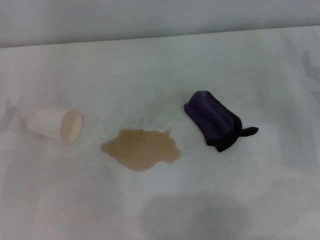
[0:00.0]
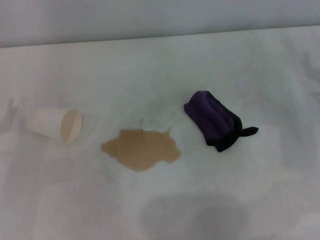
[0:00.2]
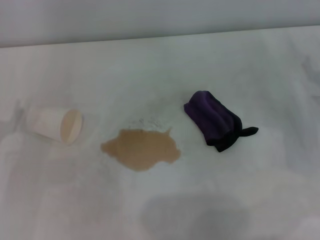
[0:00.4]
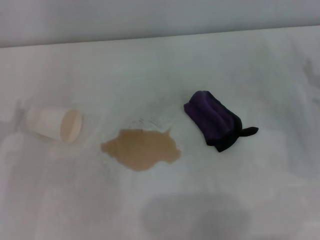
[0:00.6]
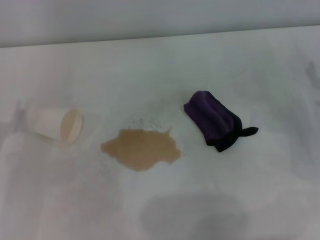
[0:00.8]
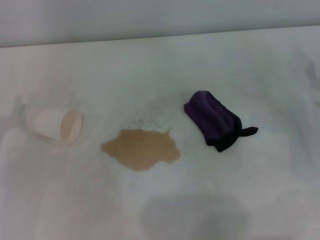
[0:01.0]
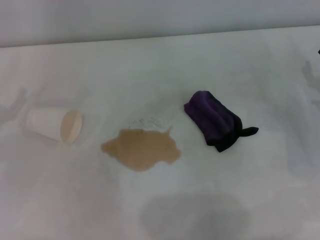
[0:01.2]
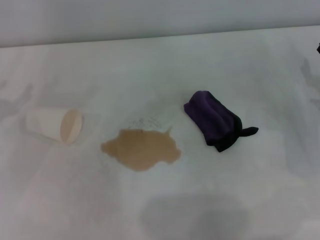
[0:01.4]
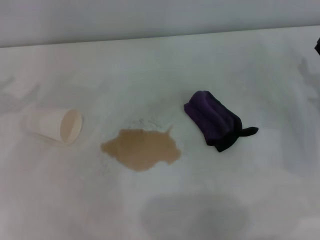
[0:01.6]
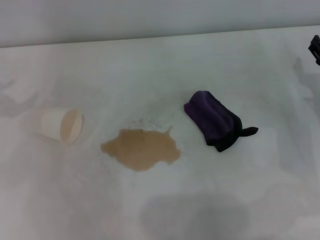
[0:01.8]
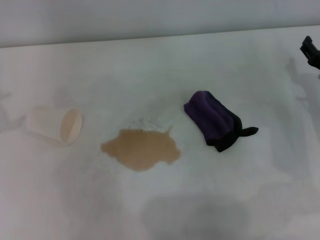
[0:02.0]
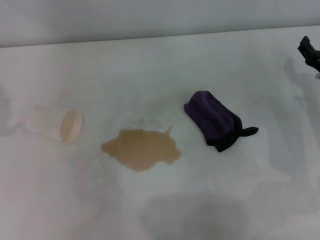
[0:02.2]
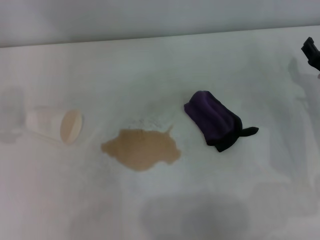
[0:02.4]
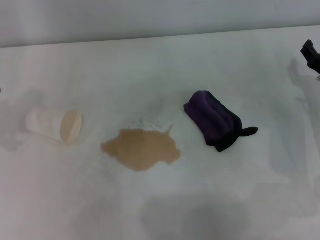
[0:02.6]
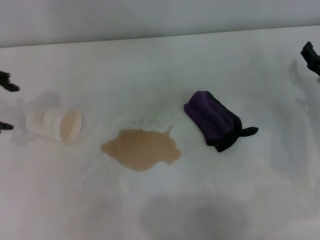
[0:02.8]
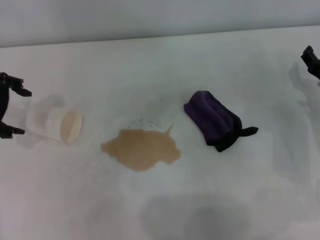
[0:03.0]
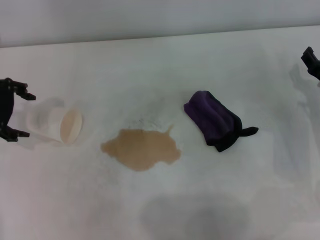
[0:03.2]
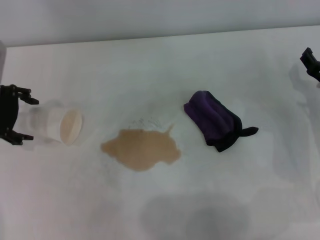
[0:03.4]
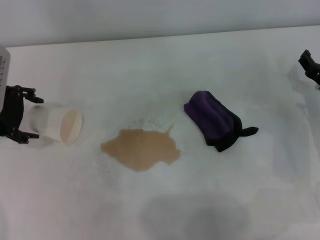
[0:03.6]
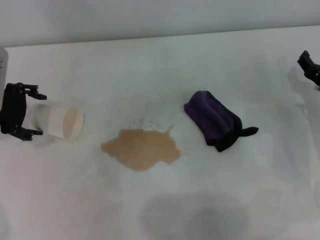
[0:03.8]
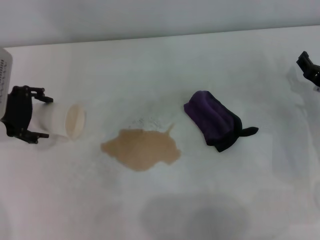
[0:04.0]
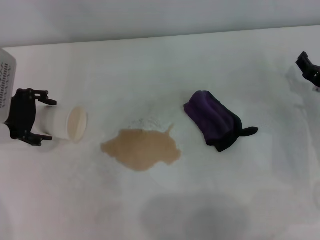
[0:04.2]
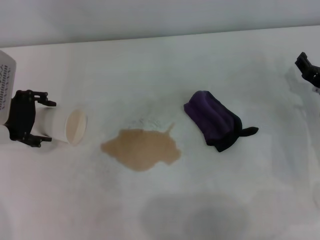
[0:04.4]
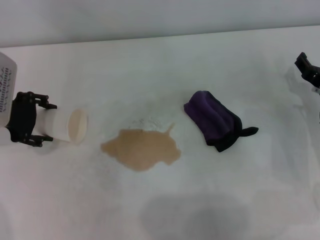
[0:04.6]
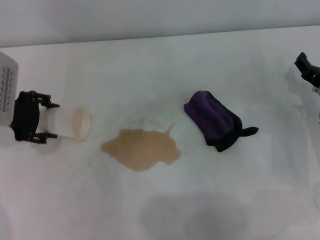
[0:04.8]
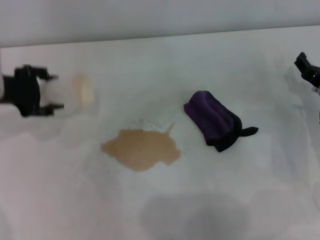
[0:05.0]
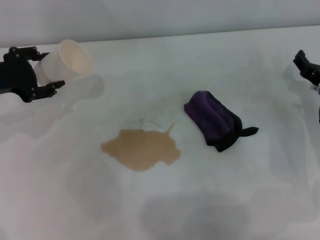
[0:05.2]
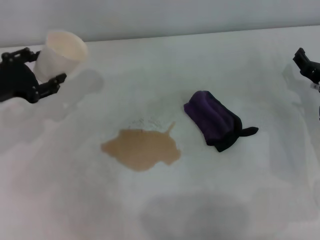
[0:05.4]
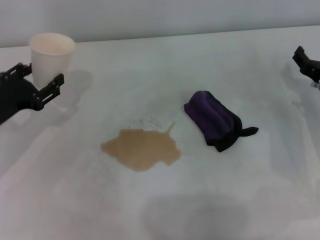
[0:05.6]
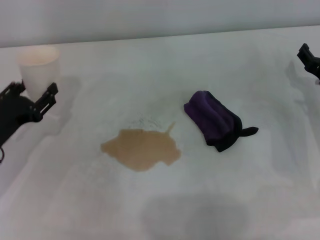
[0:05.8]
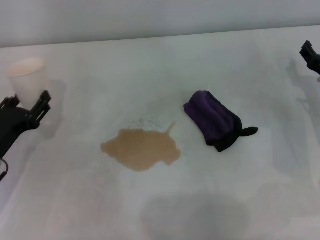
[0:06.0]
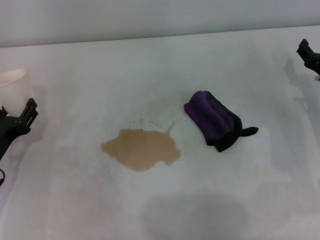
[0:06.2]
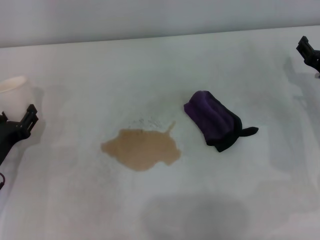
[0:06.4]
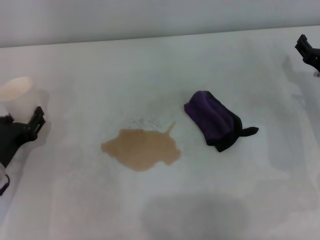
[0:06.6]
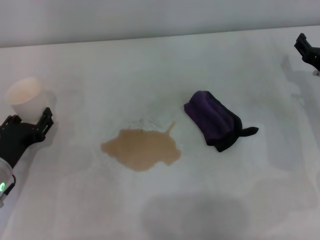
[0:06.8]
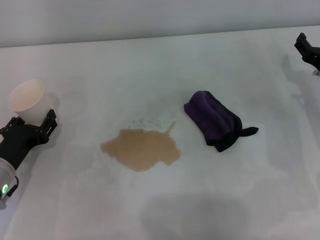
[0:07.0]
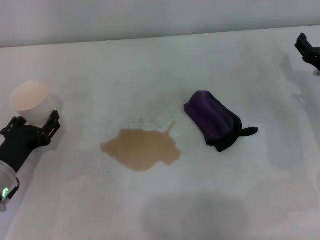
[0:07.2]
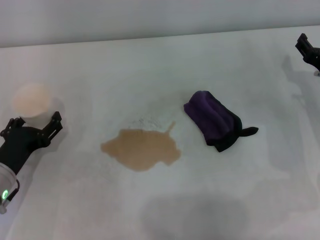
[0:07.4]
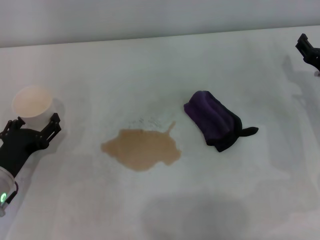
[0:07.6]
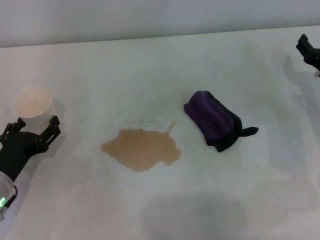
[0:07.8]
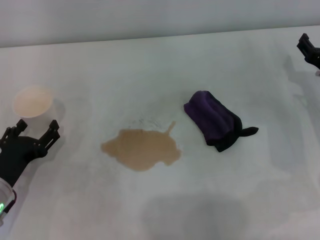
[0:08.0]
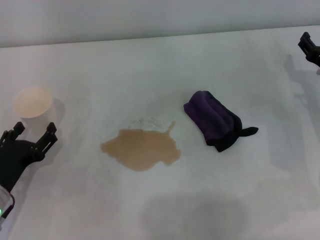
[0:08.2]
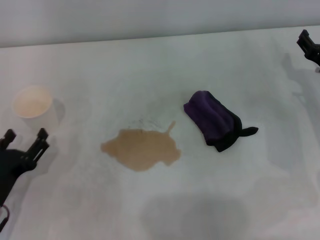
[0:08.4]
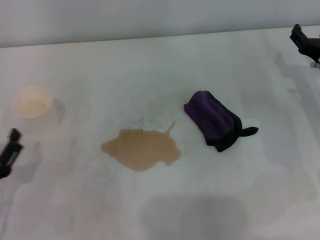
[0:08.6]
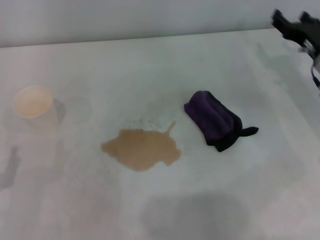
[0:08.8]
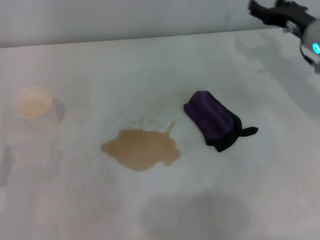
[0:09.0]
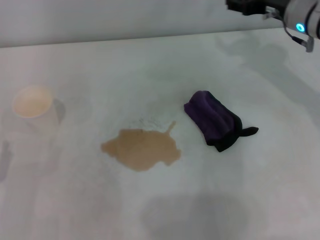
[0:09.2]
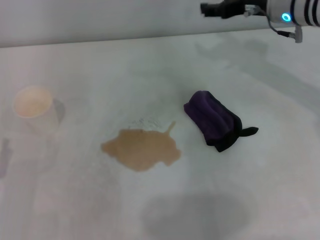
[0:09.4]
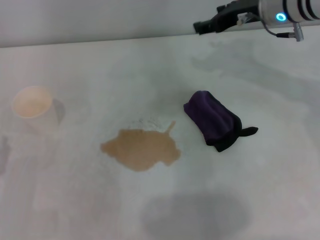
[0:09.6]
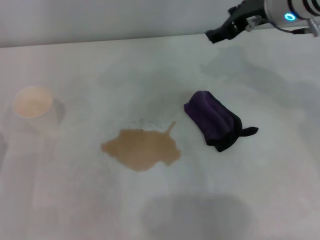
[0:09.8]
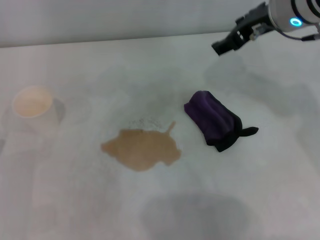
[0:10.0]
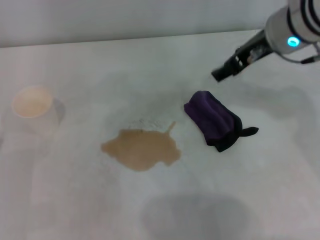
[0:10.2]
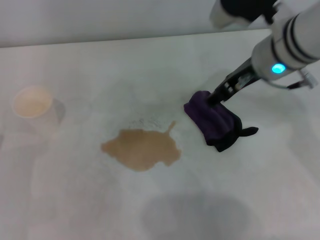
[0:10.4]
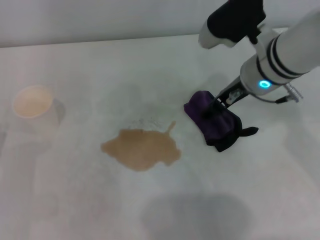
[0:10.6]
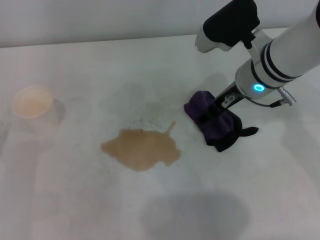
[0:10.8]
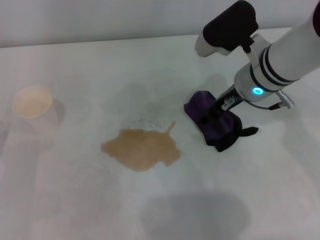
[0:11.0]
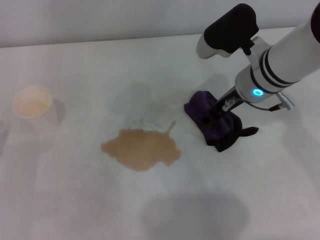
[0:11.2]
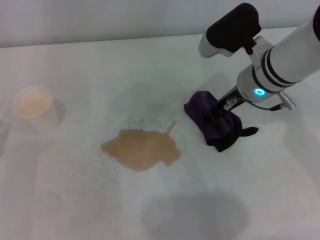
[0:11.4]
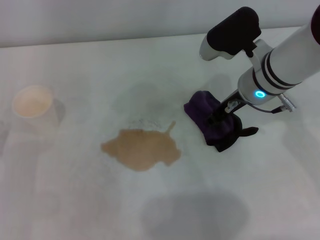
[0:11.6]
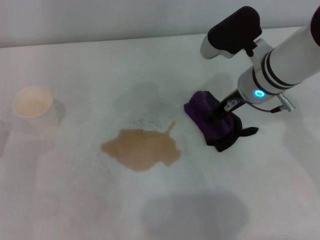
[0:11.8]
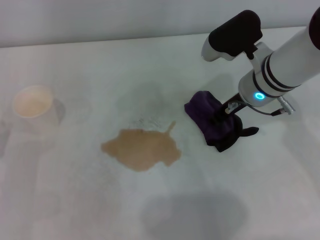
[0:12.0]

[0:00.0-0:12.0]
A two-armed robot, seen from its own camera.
Step, 0:00.0 to 0:04.6: Grasp the paper cup with the left gripper.
Step, 0:04.8 to 0:08.0: Stand the paper cup upright with the left gripper.
0:01.6 to 0:03.0: The left gripper moves to the right and upward, some 10 cm.
0:03.0 to 0:04.4: The left gripper travels downward by approximately 5 cm.
0:04.4 to 0:06.0: The left gripper heads downward and backward, covering approximately 15 cm, and closes its fingers.
0:06.0 to 0:07.6: The left gripper opens.
0:07.6 to 0:09.0: The right gripper goes about 10 cm forward and upward. The left gripper moves backward, some 10 cm.
0:09.0 to 0:10.4: The right gripper moves to the left, upward and backward, some 15 cm.
0:10.4 to 0:12.0: The right gripper goes roughly 5 cm downward, and closes.

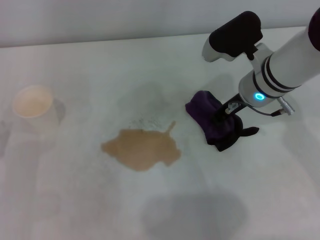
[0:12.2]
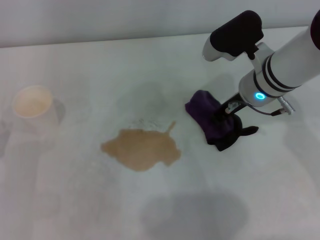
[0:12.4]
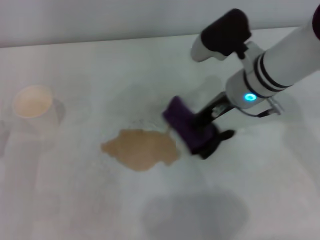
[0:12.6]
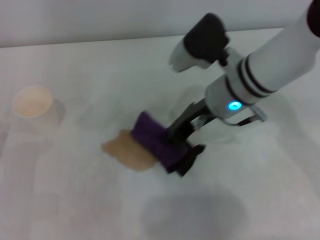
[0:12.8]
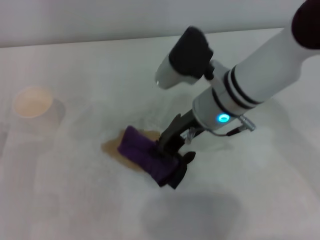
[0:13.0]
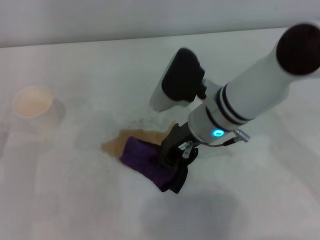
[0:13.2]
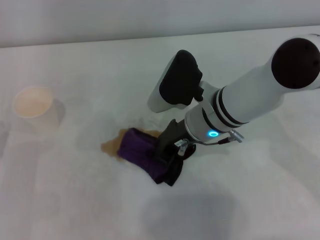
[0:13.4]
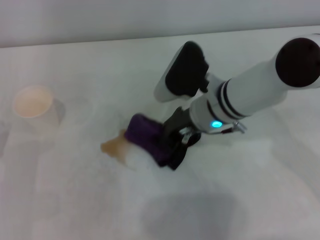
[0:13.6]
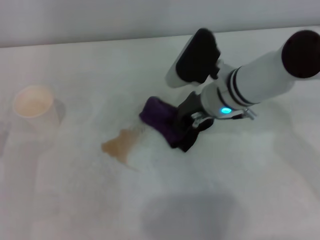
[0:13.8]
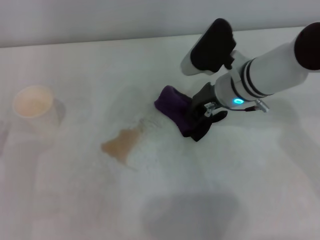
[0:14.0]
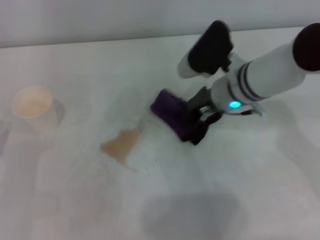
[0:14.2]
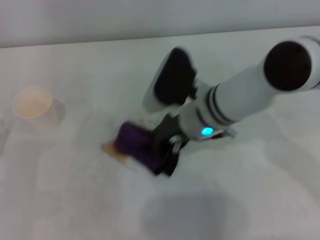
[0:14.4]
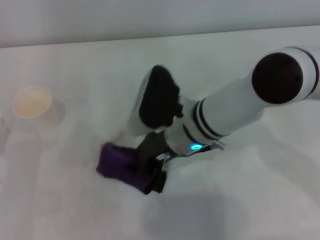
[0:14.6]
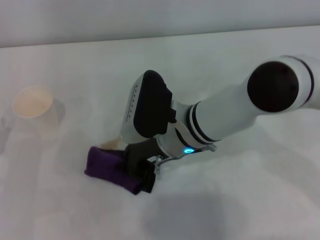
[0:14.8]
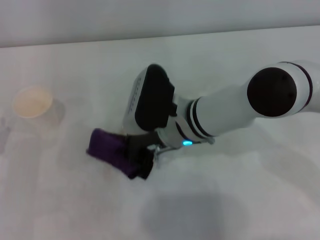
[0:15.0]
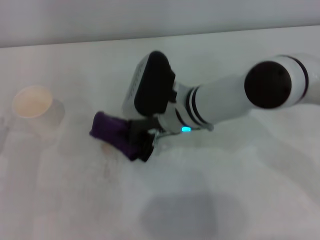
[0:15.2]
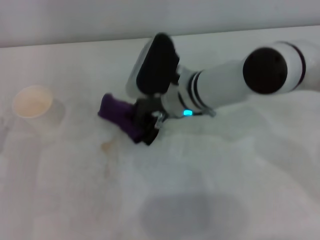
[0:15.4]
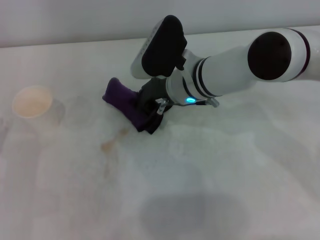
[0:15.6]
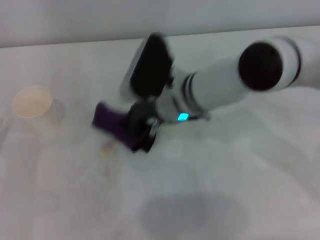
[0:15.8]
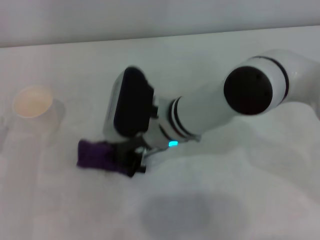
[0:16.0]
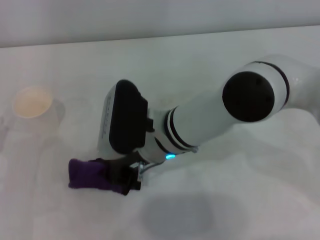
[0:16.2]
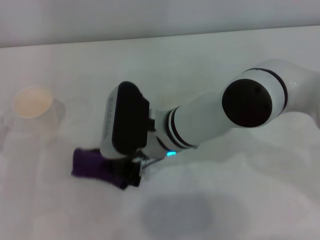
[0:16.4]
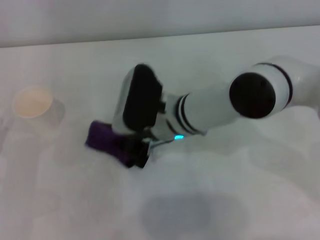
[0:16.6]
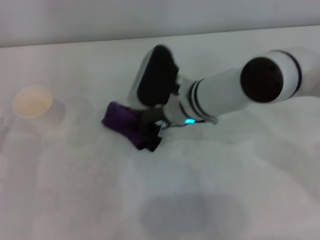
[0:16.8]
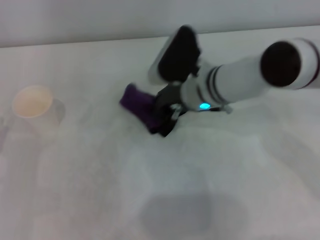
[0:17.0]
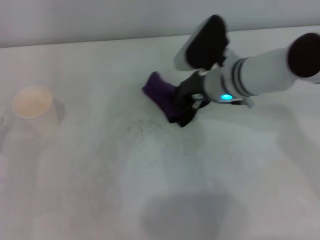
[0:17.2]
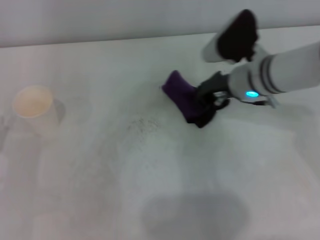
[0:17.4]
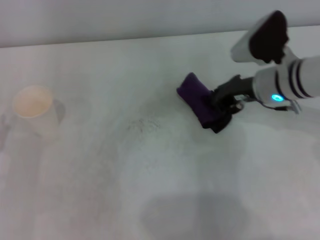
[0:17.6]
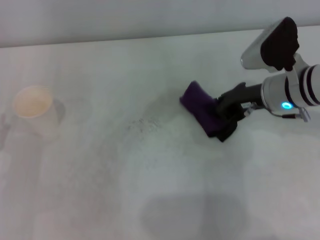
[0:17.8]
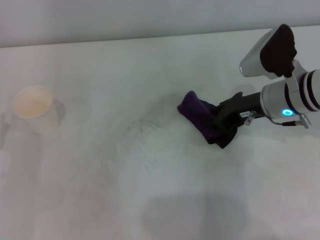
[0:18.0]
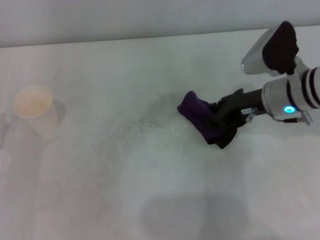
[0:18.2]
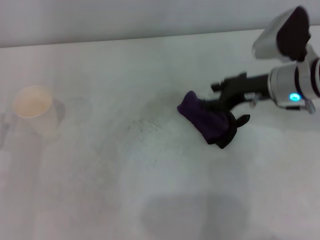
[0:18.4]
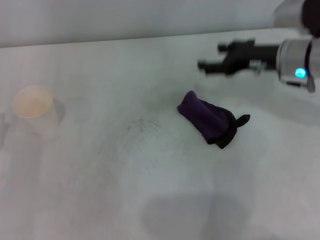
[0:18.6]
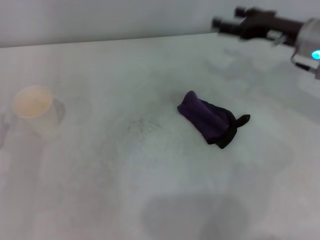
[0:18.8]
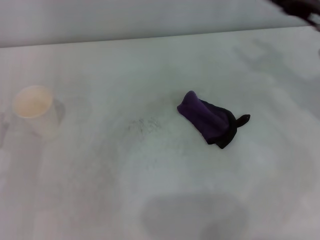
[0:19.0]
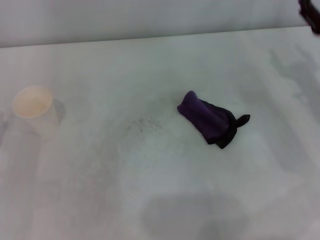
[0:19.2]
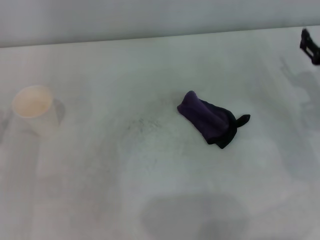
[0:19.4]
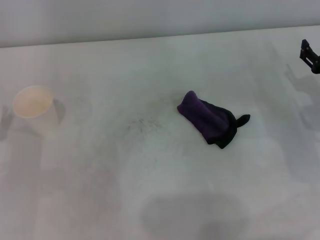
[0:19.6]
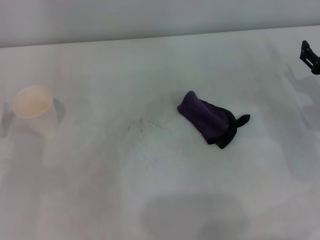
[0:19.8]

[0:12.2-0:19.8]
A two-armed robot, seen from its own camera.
Step, 0:12.4 to 0:17.4: Wipe the stains off the table with the right gripper.
Step, 0:17.6 to 0:18.2: Place the rag on the table with the right gripper.
0:13.8 to 0:15.2: The right gripper travels to the left by about 5 cm.
0:15.2 to 0:16.8: The right gripper goes backward and returns, roughly 5 cm each way.
0:16.8 to 0:18.2: The right gripper heads to the right, covering approximately 15 cm.
0:18.2 to 0:19.8: The right gripper shifts approximately 15 cm to the right and downward, and opens its fingers.

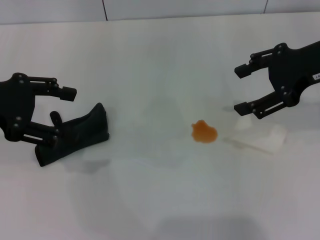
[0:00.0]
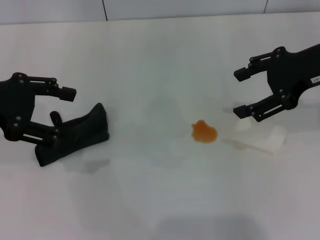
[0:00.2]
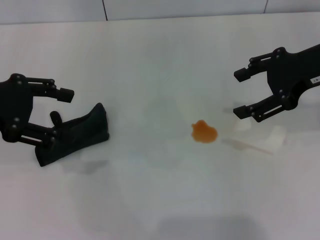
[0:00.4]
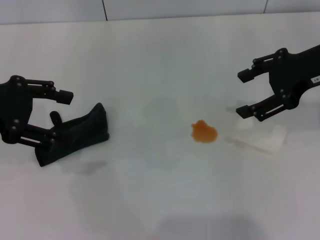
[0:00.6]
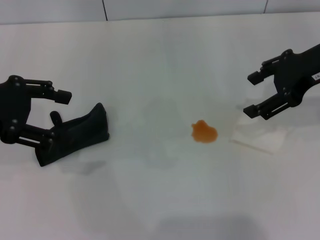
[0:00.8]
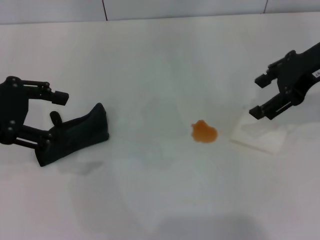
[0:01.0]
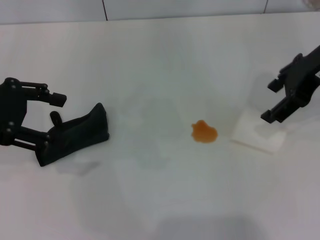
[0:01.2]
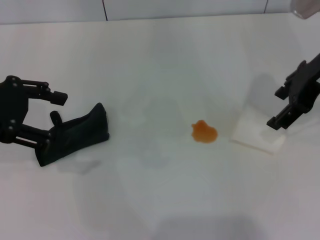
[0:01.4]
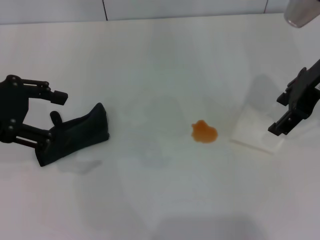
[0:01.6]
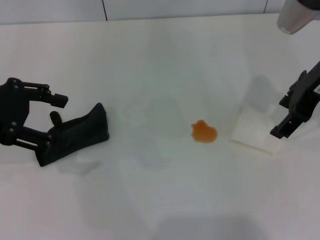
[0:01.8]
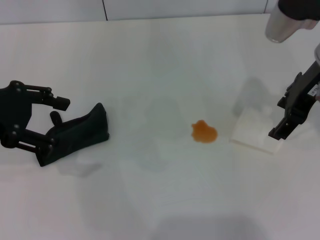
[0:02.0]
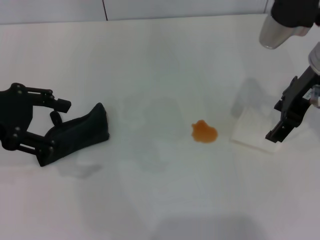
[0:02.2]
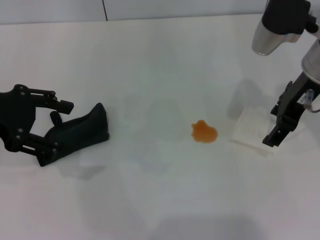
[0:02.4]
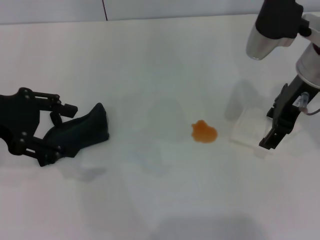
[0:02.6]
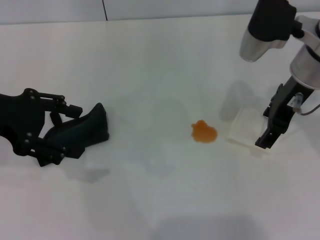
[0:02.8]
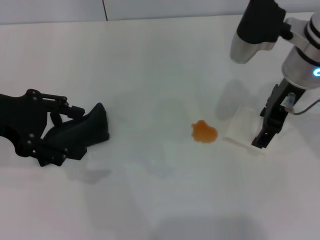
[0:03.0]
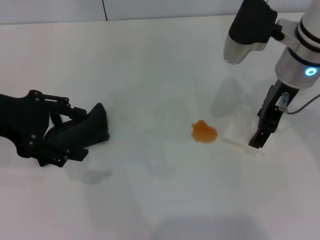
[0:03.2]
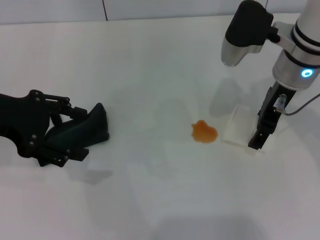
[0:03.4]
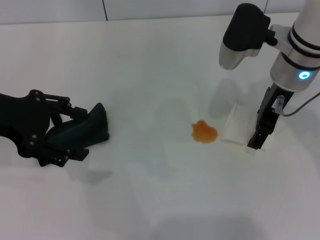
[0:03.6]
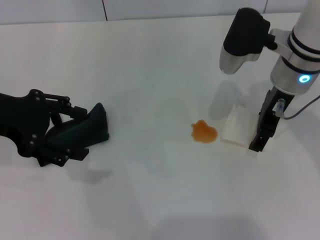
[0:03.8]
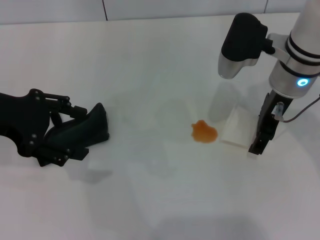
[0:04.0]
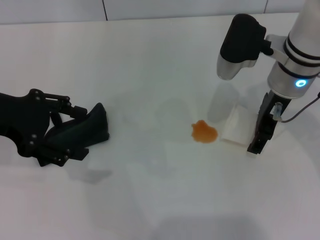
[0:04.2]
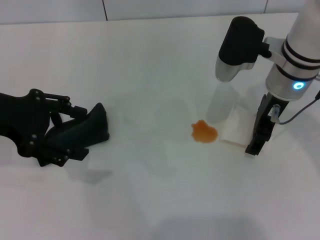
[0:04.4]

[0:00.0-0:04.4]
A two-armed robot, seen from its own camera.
0:01.4 to 0:03.0: The right gripper is displaced to the left by some 5 cm.
0:03.0 to 0:04.4: The grippers make only small movements.
